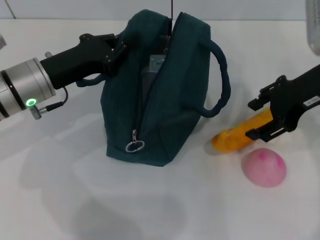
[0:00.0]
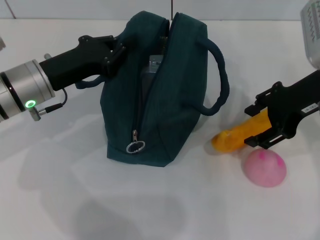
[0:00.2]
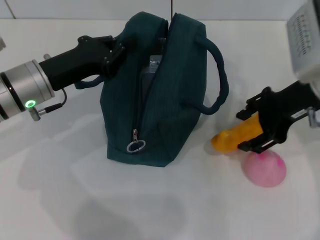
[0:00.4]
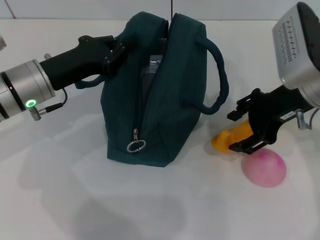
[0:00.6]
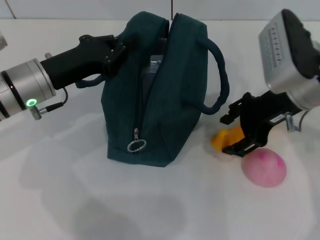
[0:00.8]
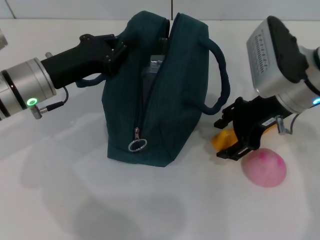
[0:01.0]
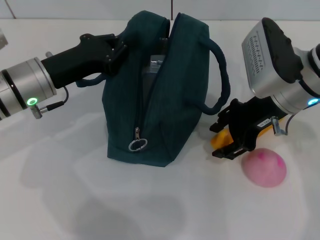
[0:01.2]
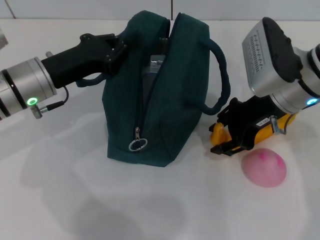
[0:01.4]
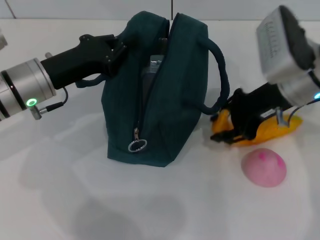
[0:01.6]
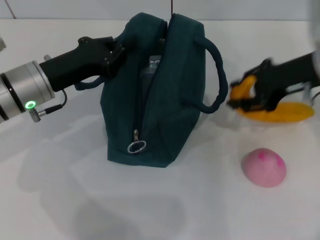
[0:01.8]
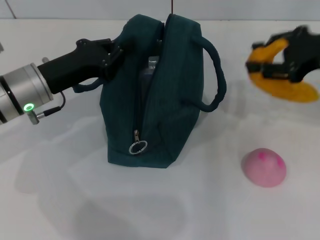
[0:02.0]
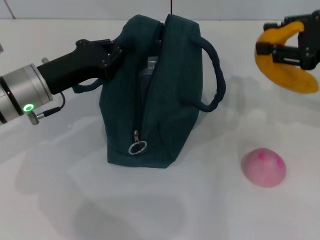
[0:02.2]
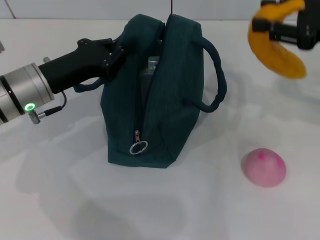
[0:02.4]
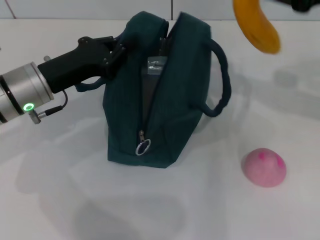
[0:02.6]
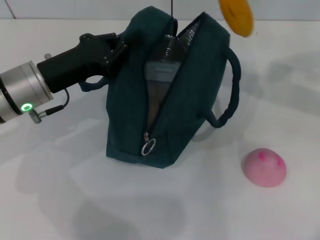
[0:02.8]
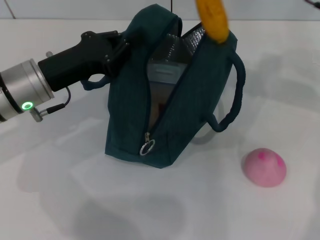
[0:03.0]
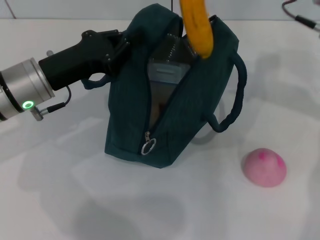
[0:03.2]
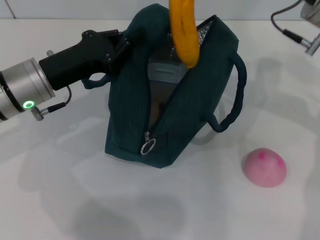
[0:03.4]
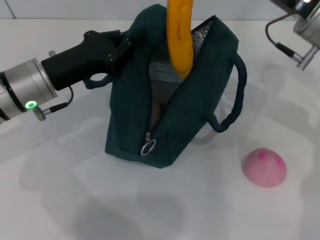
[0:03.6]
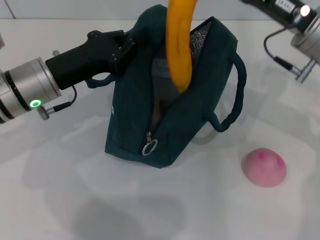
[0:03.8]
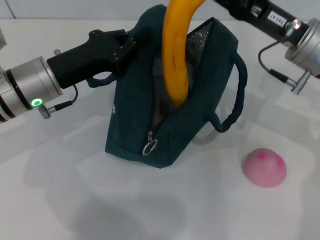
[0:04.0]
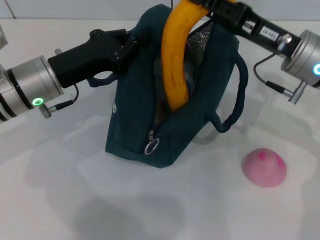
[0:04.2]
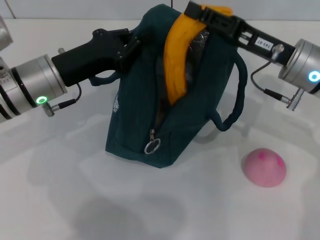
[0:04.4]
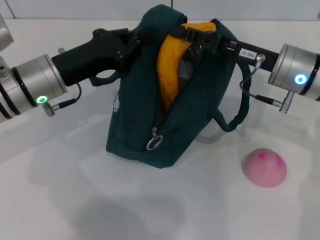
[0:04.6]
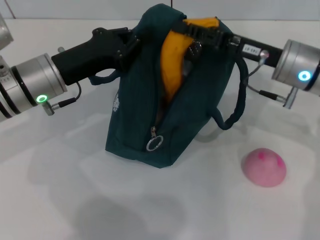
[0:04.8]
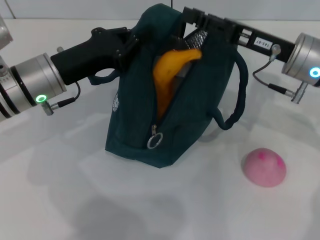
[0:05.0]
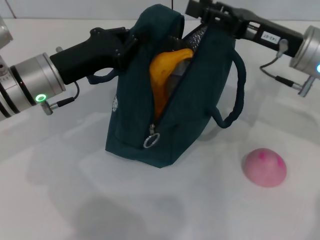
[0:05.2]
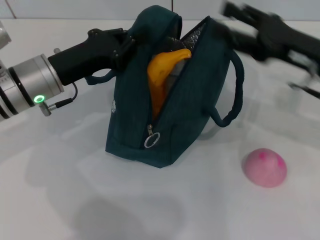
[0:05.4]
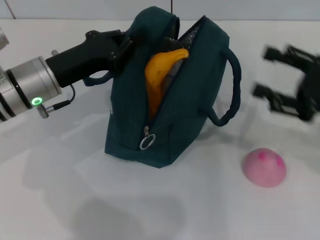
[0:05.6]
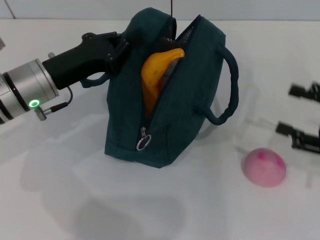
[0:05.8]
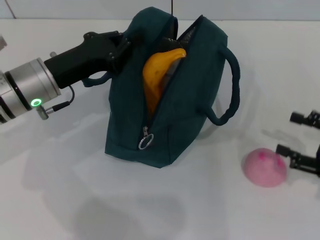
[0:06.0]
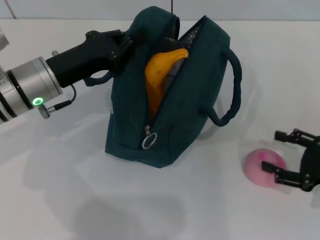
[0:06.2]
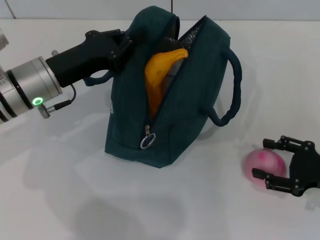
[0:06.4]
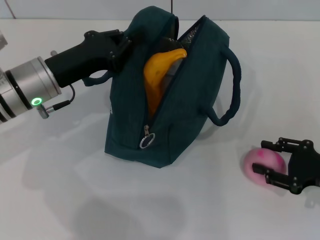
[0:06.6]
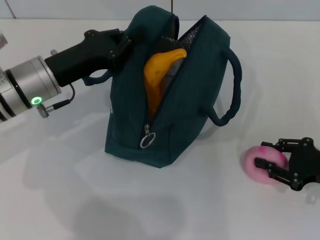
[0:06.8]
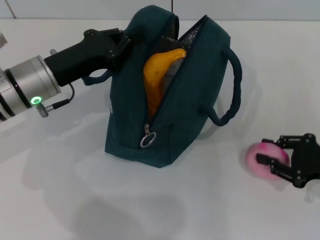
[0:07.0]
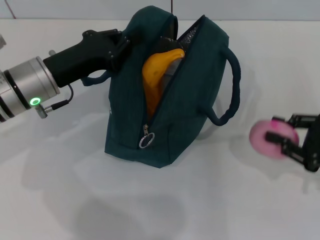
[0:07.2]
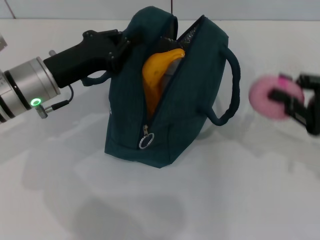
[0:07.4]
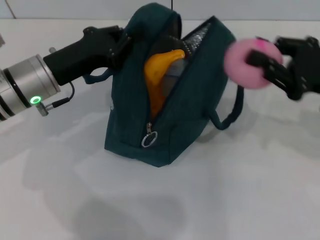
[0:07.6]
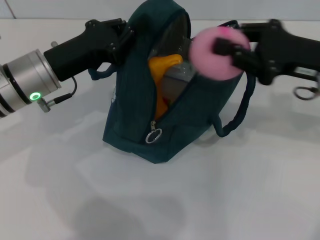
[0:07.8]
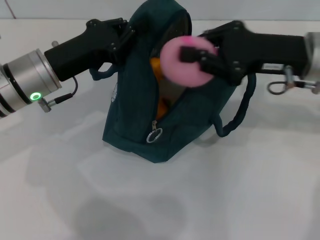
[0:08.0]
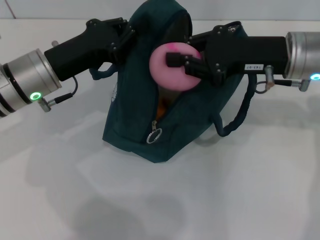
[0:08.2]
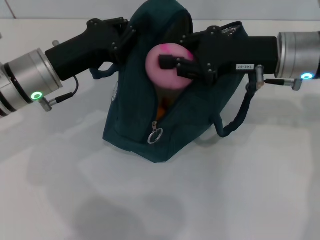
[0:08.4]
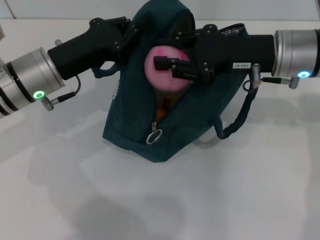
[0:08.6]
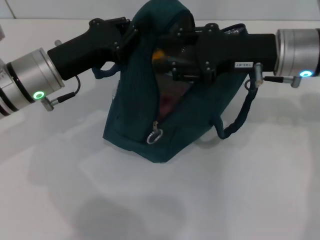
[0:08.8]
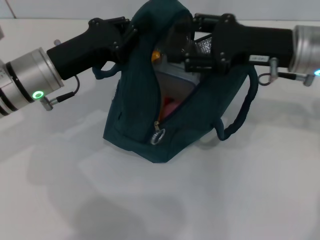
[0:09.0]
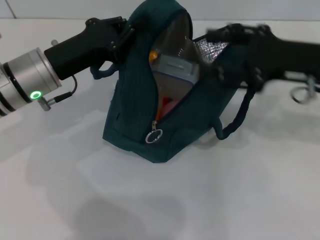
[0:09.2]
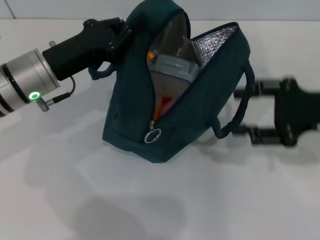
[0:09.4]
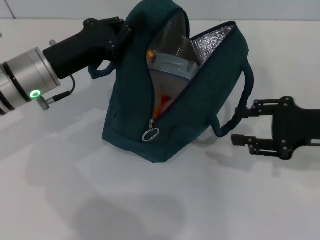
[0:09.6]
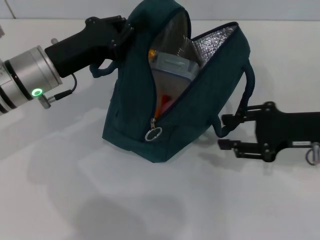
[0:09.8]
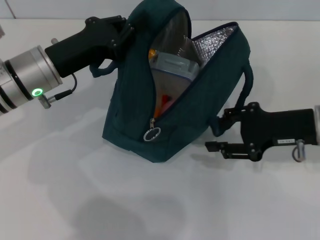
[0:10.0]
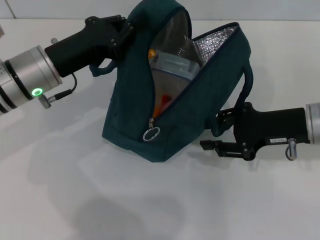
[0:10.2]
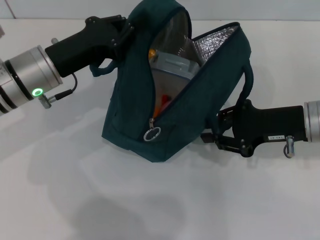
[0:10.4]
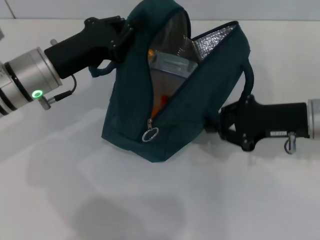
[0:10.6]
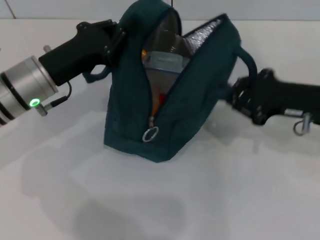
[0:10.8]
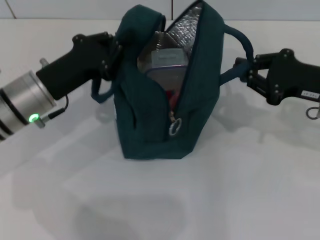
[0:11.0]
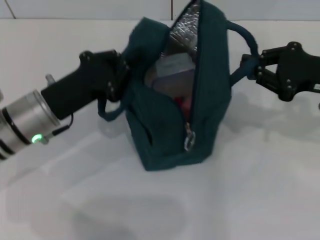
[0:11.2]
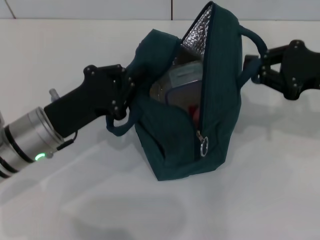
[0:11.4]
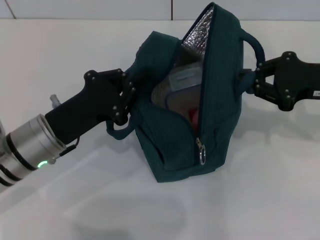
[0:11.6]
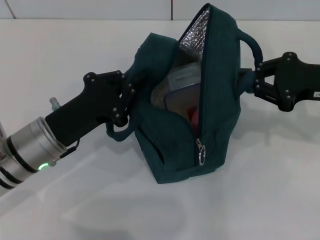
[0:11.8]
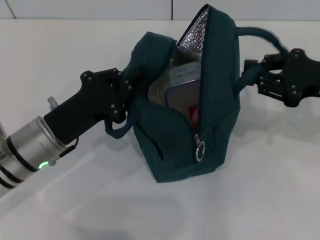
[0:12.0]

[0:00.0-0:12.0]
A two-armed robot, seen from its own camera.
Step, 0:00.0 to 0:01.4: Take the banana with your right hand.
Step, 0:01.8 to 0:04.8: Put the banana into the lunch bag with your right hand.
Step, 0:05.2 to 0:06.8: Grab the peach with your right hand.
0:00.0 to 0:01.6: The right gripper ends up about 5 cm from where it was.
0:01.6 to 0:03.0: The right gripper moves upward, approximately 10 cm.
0:03.0 to 0:04.4: The right gripper travels downward by roughly 10 cm.
0:04.4 to 0:06.0: The right gripper moves to the right, backward and downward, about 20 cm.
0:06.0 to 0:07.6: The right gripper moves upward, forward and to the left, approximately 10 cm, and closes.
0:07.6 to 0:09.0: The right gripper goes about 10 cm to the left.
0:09.0 to 0:10.4: The right gripper travels downward by about 5 cm.
0:10.4 to 0:12.0: The left gripper is displaced backward and downward by some 10 cm; the right gripper shifts some 5 cm to the right, and closes up.

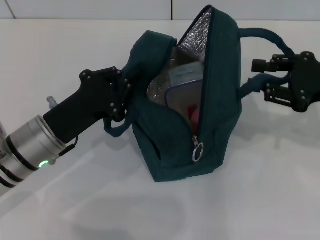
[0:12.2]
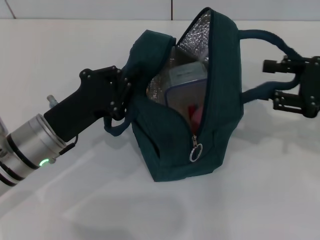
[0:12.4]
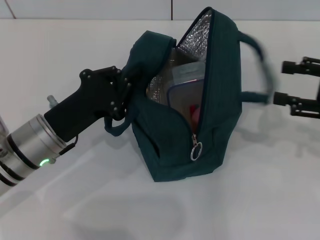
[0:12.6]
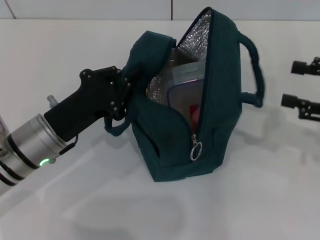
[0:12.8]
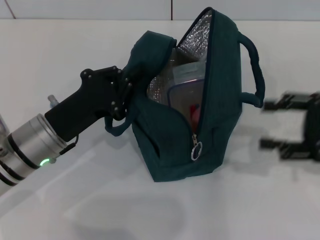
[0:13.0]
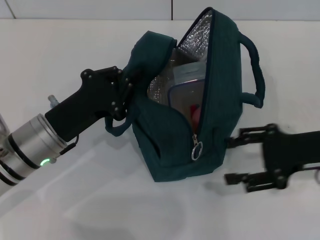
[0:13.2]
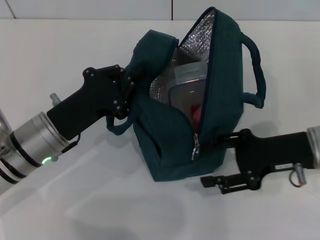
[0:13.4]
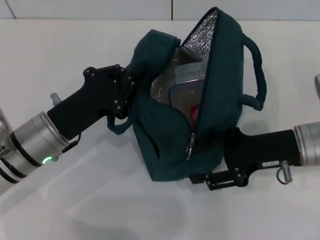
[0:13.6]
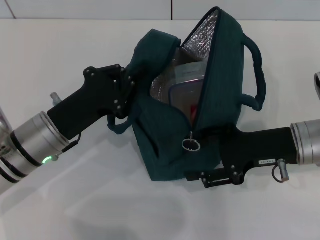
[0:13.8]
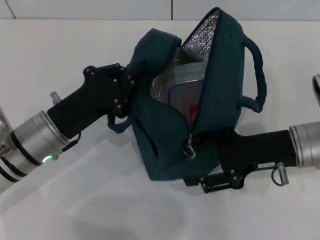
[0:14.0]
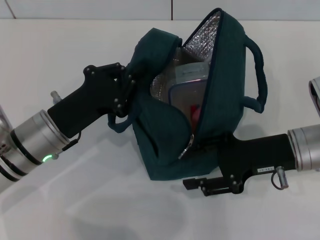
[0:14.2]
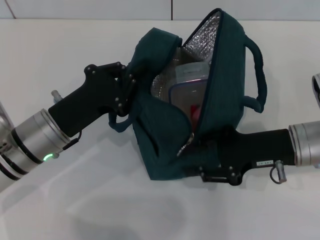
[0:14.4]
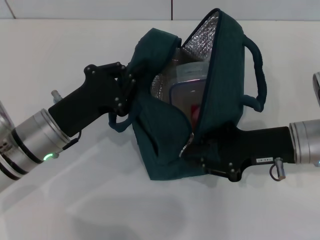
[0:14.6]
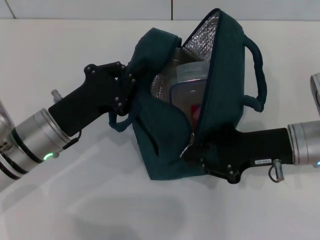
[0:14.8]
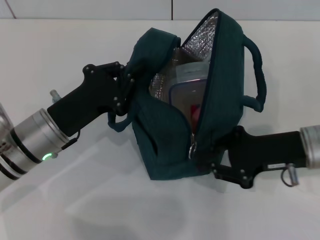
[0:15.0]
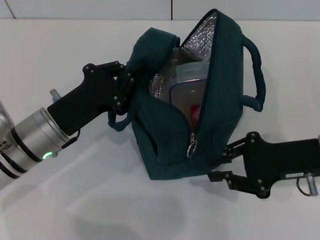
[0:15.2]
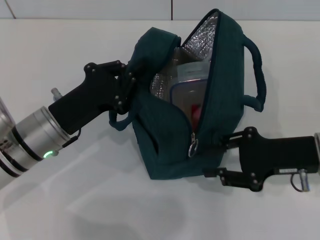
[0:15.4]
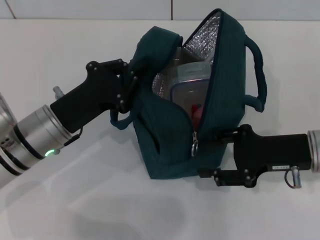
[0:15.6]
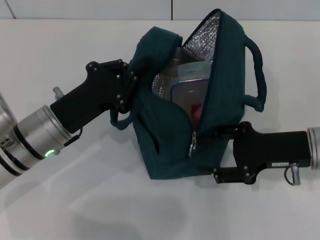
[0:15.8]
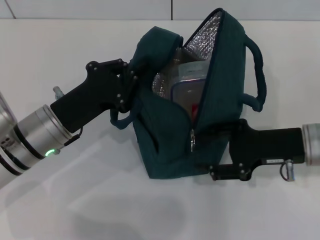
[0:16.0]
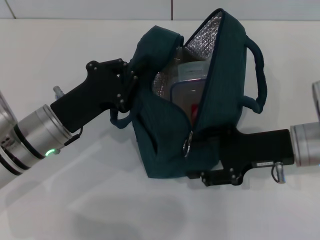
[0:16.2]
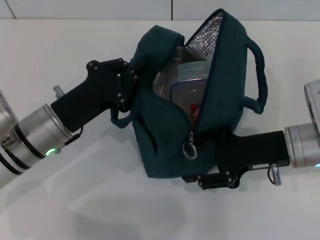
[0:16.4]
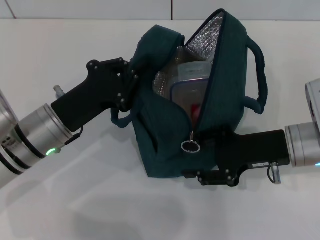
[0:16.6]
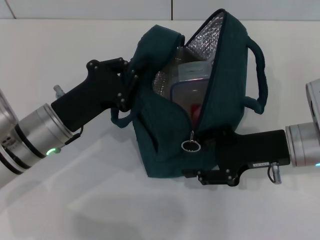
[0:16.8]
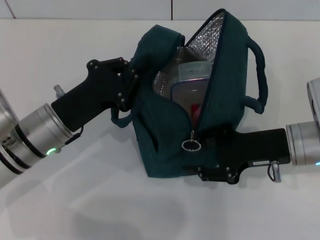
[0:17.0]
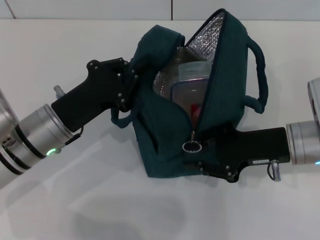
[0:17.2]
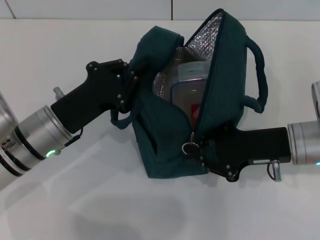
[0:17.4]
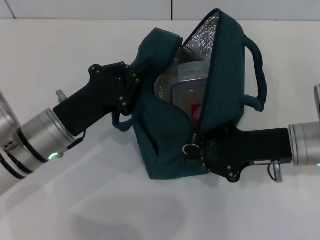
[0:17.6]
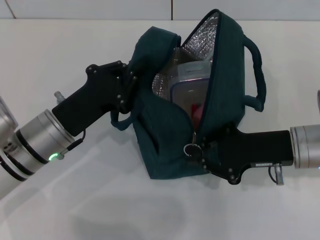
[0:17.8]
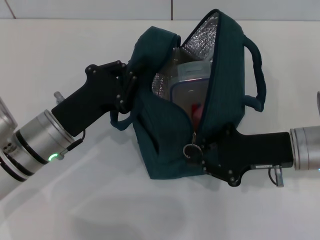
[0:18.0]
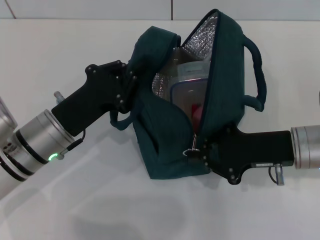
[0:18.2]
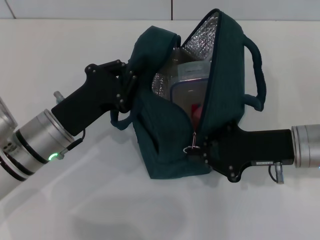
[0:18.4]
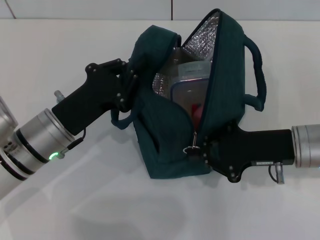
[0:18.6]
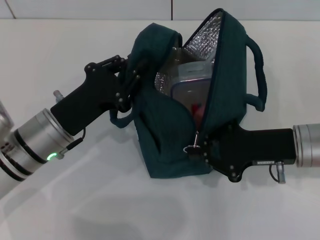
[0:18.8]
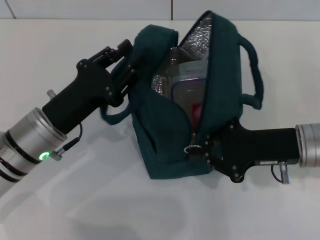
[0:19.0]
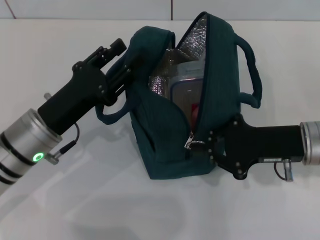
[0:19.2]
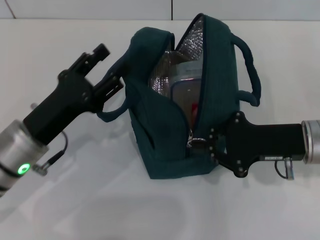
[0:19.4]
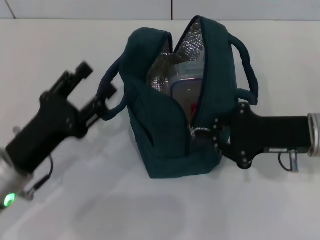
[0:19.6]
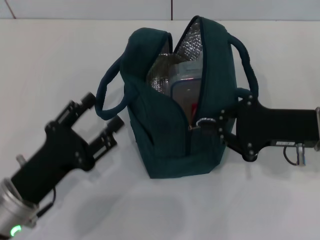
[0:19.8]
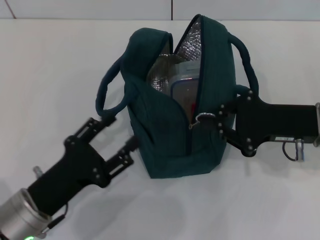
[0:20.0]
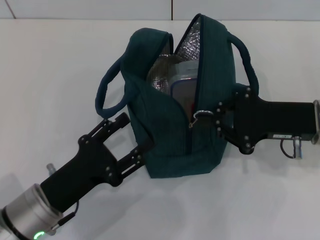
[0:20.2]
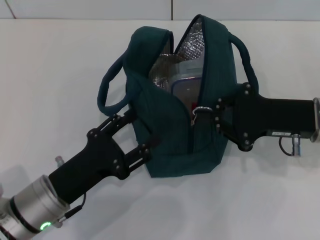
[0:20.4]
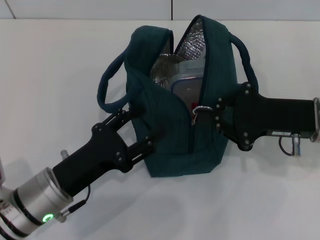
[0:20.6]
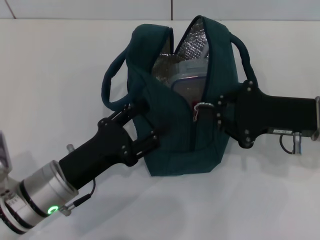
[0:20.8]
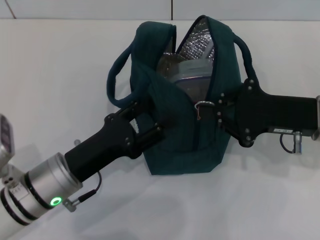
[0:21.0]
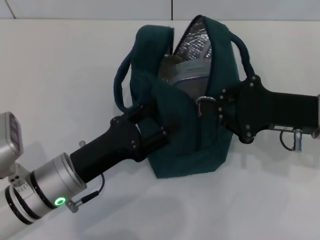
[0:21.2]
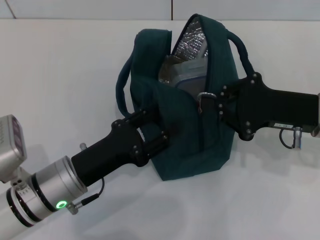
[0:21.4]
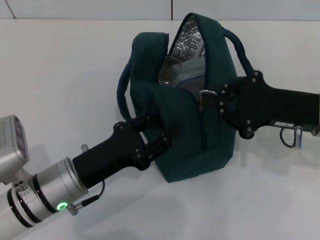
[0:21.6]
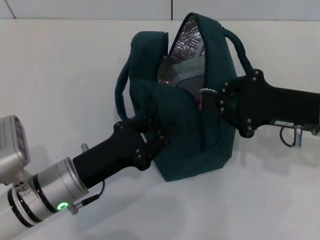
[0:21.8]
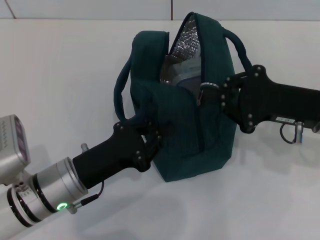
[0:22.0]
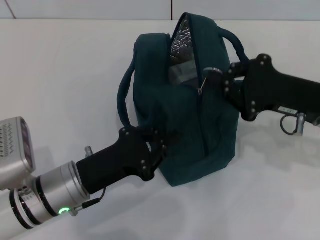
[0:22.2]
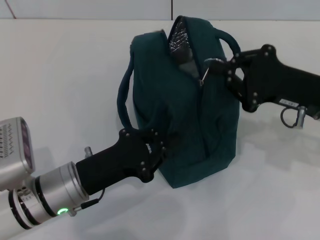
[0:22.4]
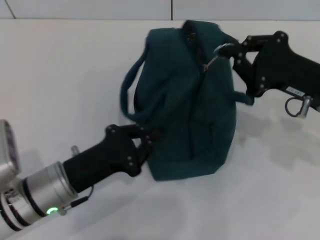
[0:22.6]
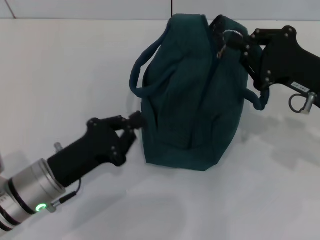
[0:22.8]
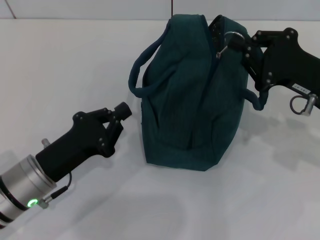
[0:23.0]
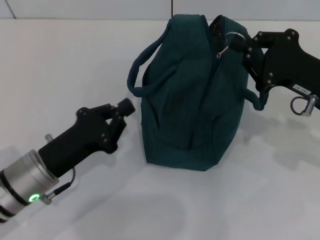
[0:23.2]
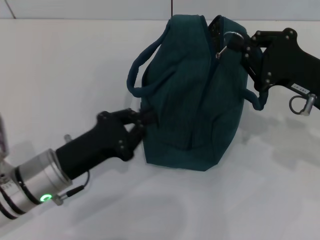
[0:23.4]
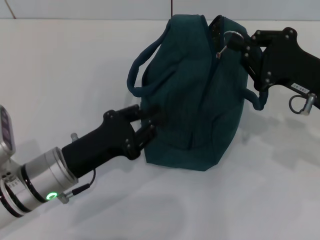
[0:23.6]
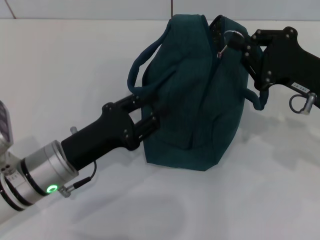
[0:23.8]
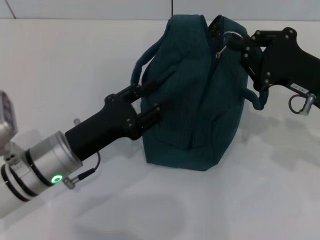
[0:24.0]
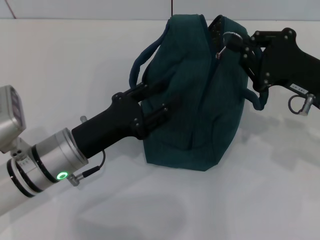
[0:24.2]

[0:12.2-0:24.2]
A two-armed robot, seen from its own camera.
Step, 0:12.6 to 0:19.2: Hold the lunch bag with your left hand.
0:12.2 to 0:13.8: The right gripper shifts some 10 cm to the left and downward, and opens.
0:13.8 to 0:15.2: The right gripper closes up.
0:15.2 to 0:16.6: The right gripper opens up.
0:16.6 to 0:18.2: The right gripper closes its fingers.
0:18.2 to 0:19.8: The left gripper heads backward, covering some 10 cm, and opens.
0:19.8 to 0:21.2: The left gripper changes place by about 5 cm.
0:21.2 to 0:22.6: The left gripper closes its fingers.
0:22.6 to 0:24.2: The left gripper opens up.
